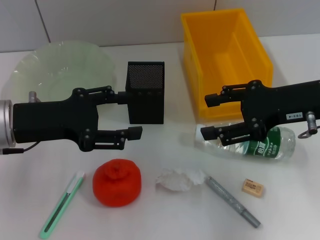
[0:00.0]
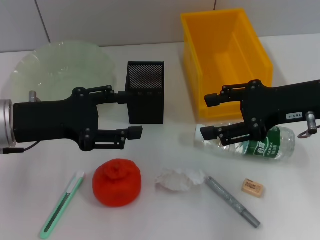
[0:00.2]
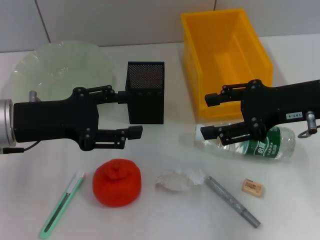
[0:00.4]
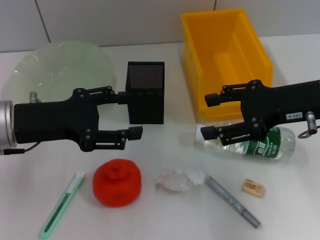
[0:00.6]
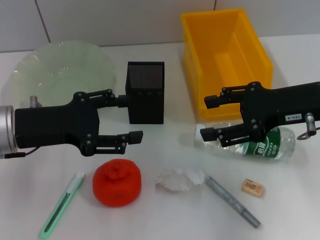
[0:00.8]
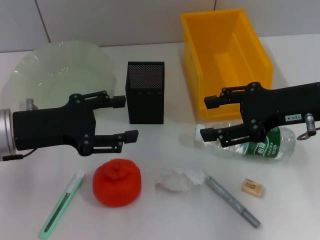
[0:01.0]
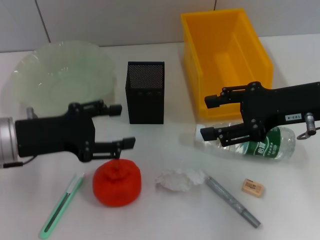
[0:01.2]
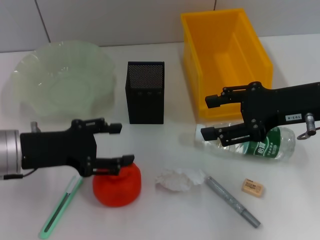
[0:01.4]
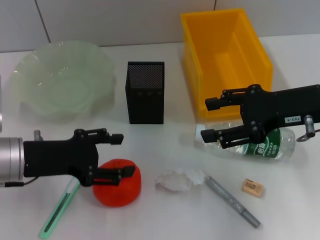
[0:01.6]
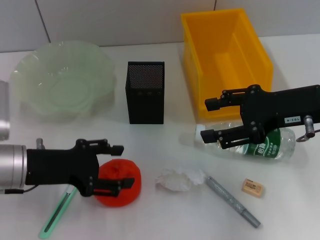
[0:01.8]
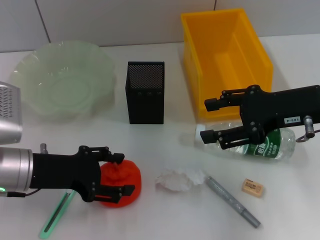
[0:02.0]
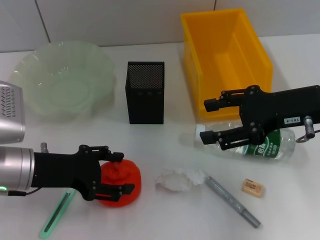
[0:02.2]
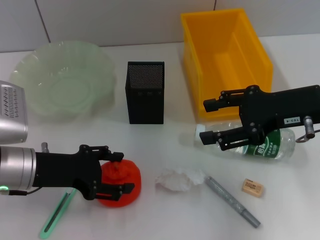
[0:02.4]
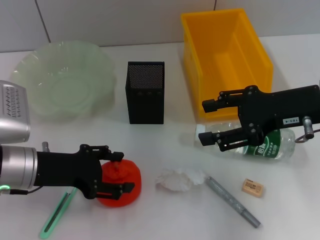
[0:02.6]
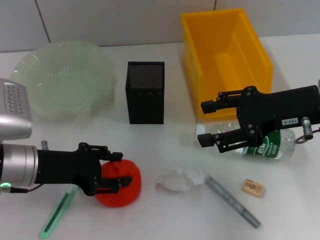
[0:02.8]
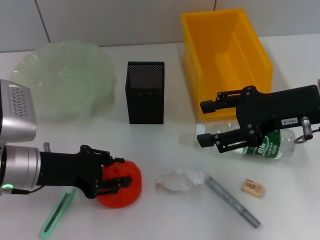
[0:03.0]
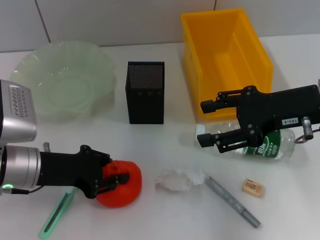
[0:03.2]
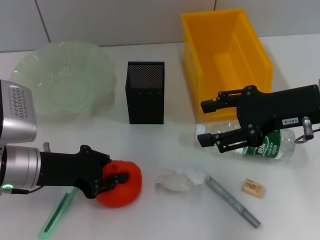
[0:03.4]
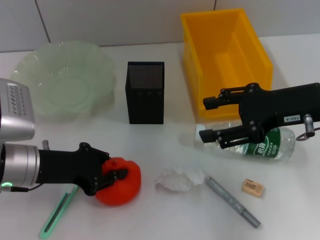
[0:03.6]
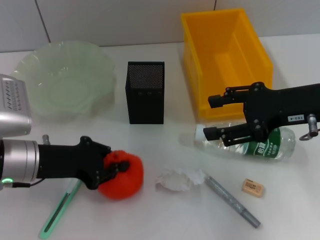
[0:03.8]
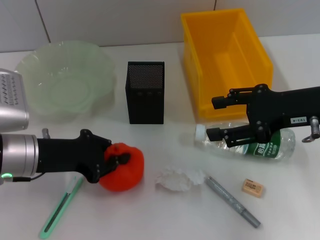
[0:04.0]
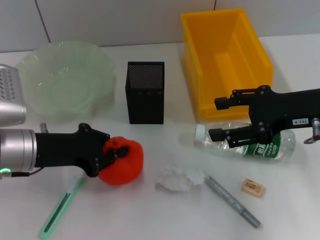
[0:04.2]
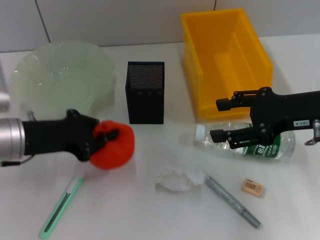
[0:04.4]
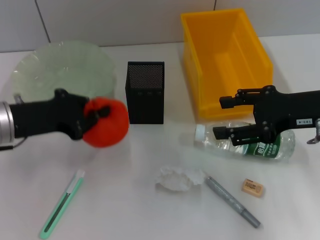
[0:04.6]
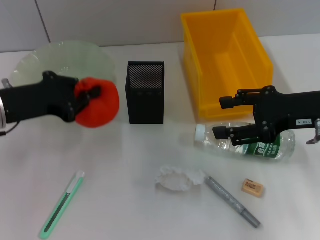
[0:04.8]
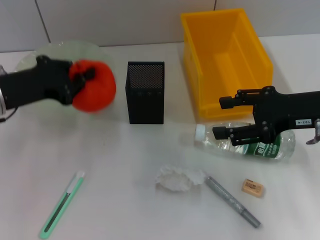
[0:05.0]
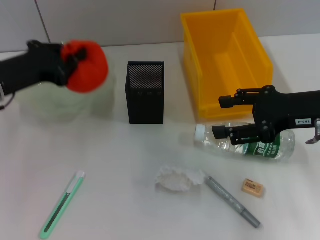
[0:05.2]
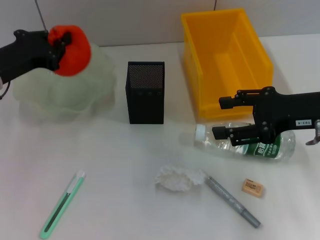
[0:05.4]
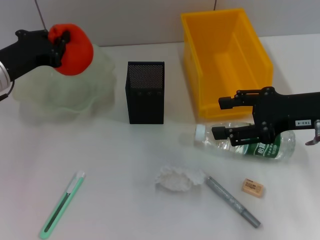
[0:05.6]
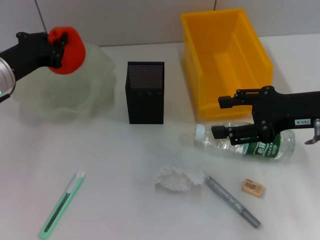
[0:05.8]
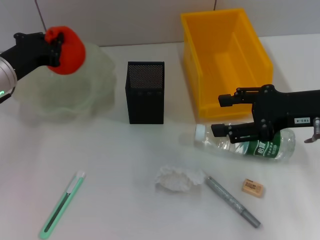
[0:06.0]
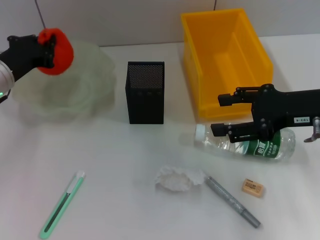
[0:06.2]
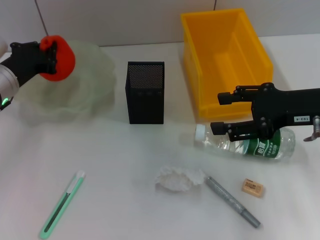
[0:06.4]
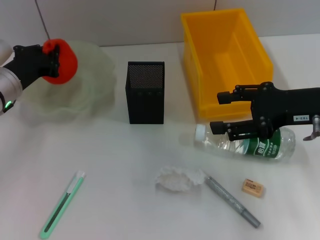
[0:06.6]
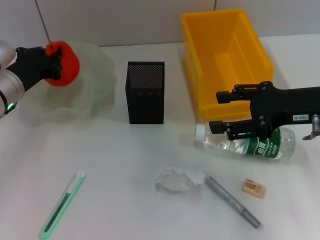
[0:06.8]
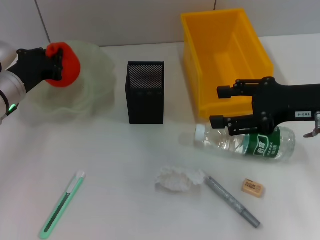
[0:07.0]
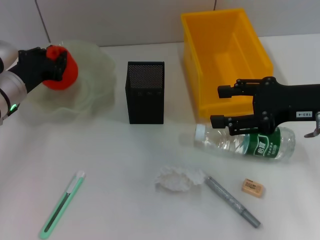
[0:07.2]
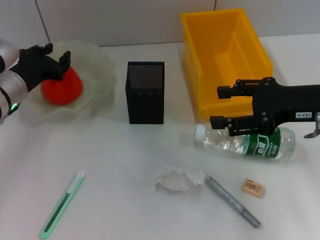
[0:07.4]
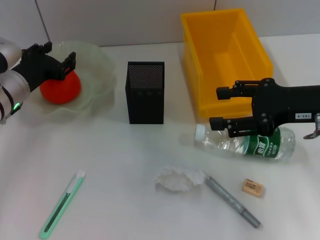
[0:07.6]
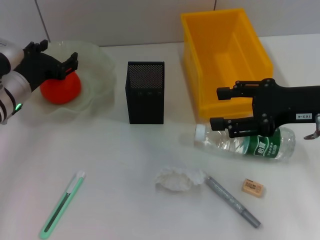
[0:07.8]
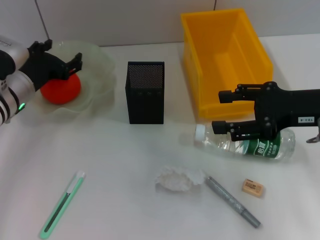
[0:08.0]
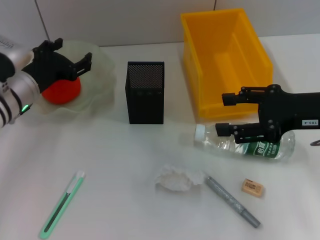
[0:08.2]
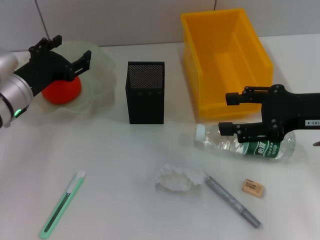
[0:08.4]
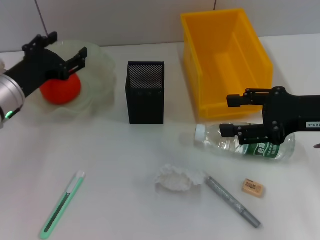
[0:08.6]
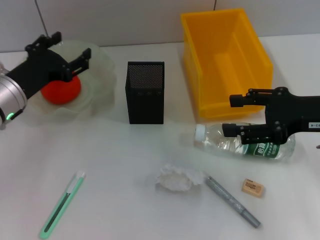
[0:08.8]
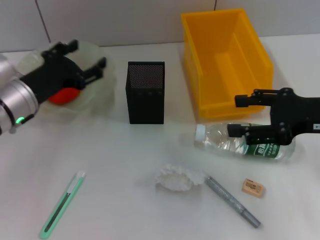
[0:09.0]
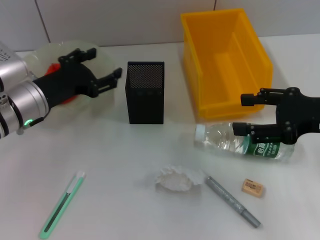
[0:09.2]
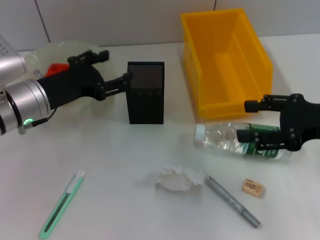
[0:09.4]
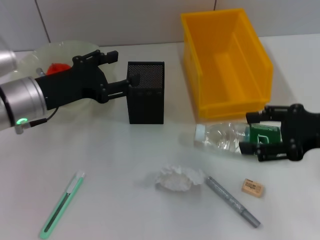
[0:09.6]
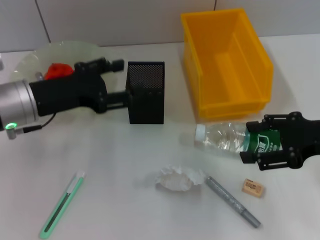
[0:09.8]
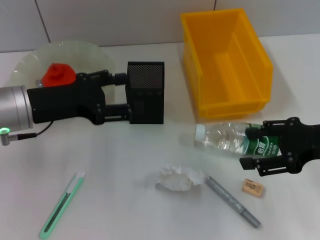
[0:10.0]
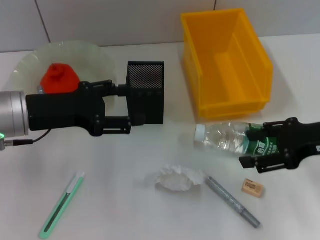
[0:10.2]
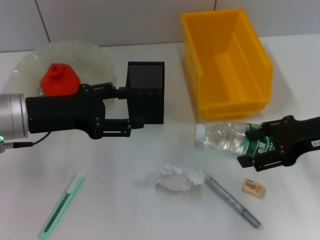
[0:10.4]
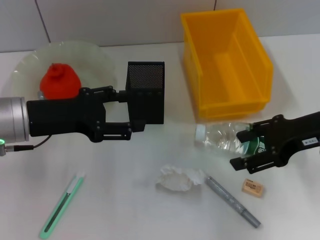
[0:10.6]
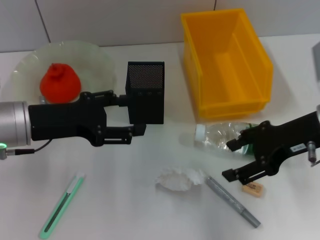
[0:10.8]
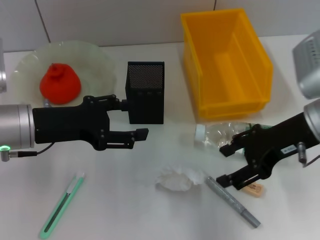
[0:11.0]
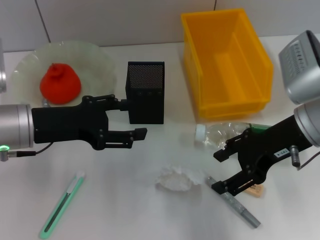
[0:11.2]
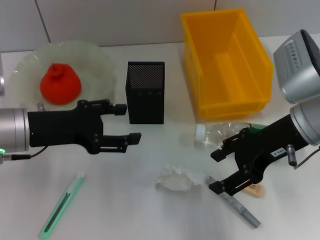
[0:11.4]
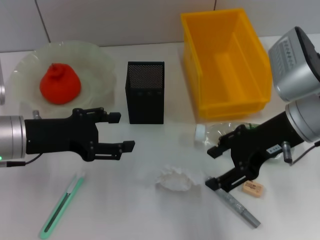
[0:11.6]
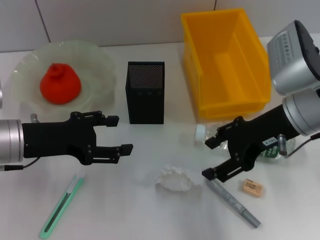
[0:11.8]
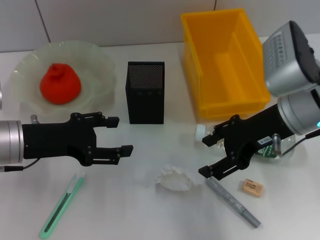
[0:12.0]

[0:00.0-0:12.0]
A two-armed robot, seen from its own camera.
Step, 0:00.0 to 0:03.8: Grab the orange with the left hand.
Step, 0:04.0 to 0:07.6: Place the orange into the fruit bowl with the left hand.
0:00.0 to 0:01.6: The grippers make only small movements.
0:01.6 to 0:03.0: The grippers make only small movements.
0:03.0 to 0:04.4: The left gripper closes its fingers.
0:04.4 to 0:06.0: The left gripper heads forward, covering approximately 10 cm.
0:06.0 to 0:07.6: The left gripper opens up.
0:07.6 to 0:09.0: The left gripper opens up.
0:09.0 to 0:10.4: The left gripper goes about 5 cm upward.
0:10.4 to 0:12.0: The right gripper goes roughly 10 cm to the left.

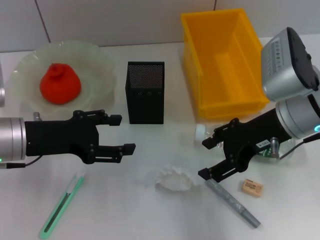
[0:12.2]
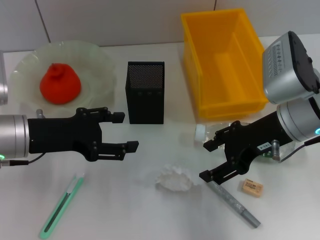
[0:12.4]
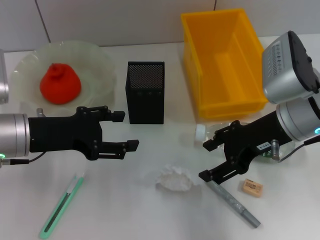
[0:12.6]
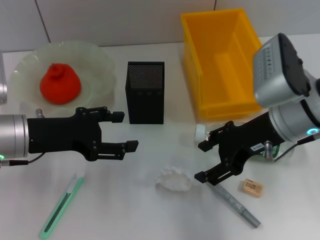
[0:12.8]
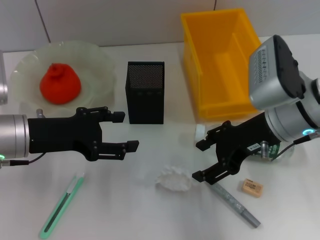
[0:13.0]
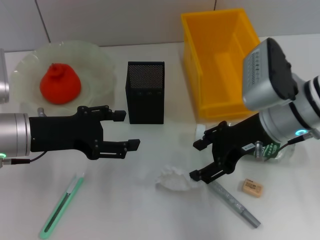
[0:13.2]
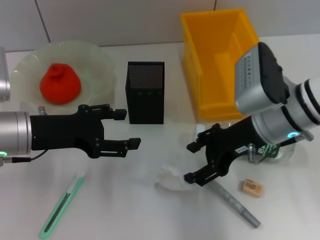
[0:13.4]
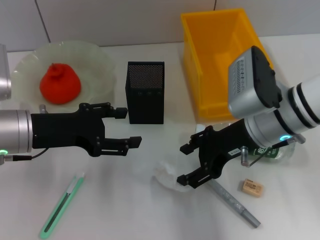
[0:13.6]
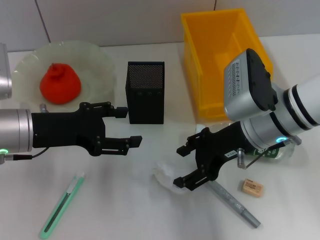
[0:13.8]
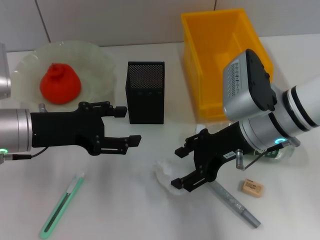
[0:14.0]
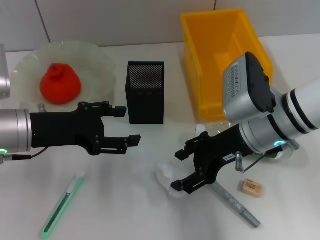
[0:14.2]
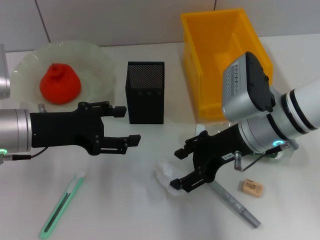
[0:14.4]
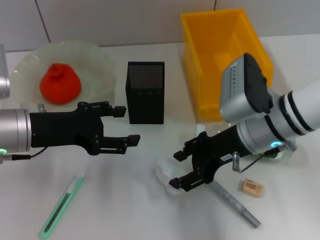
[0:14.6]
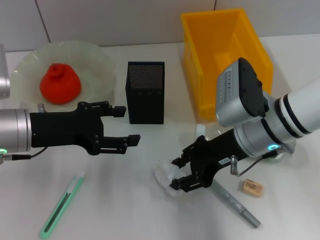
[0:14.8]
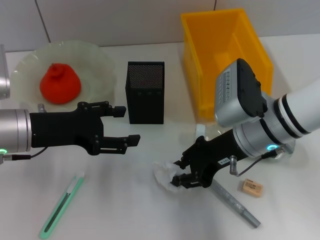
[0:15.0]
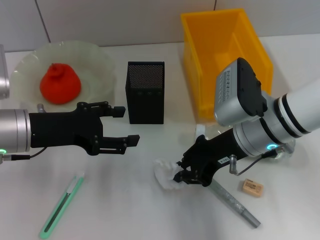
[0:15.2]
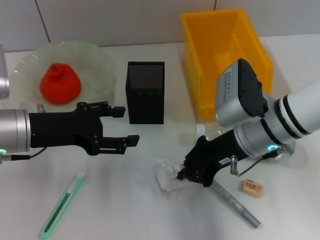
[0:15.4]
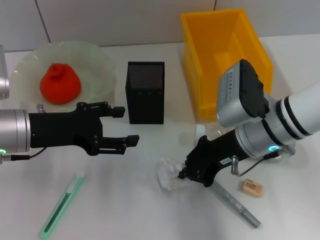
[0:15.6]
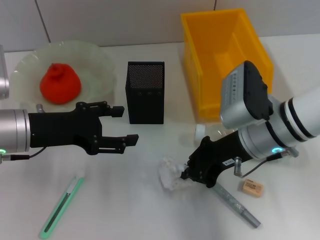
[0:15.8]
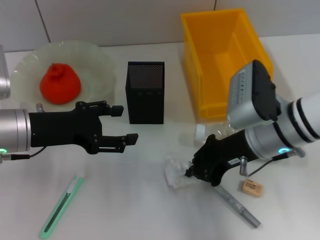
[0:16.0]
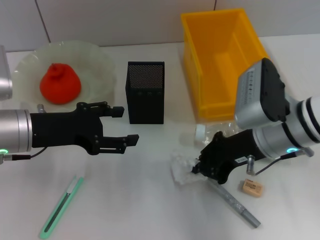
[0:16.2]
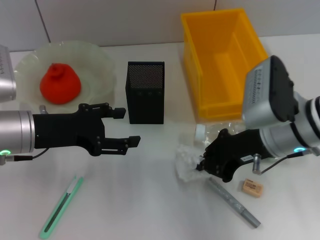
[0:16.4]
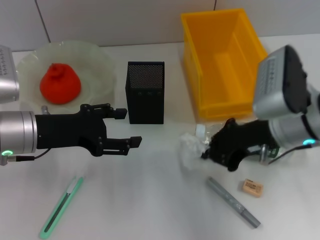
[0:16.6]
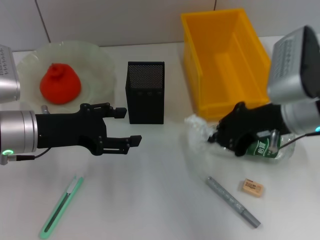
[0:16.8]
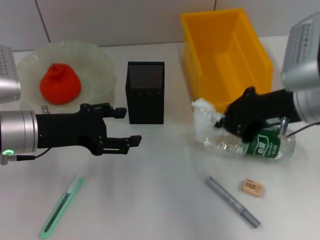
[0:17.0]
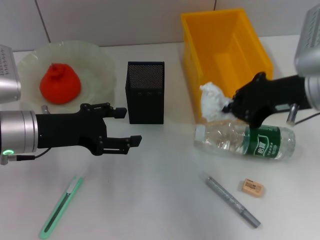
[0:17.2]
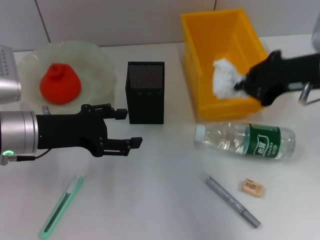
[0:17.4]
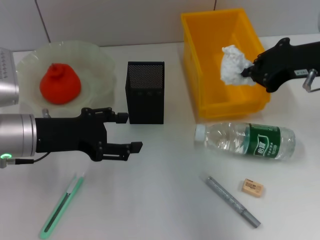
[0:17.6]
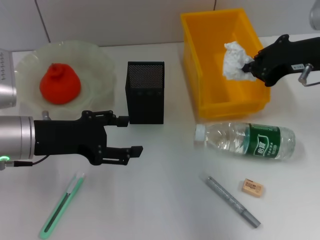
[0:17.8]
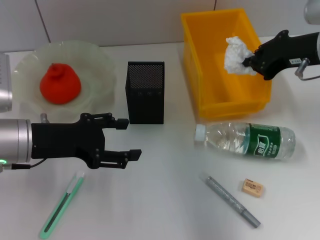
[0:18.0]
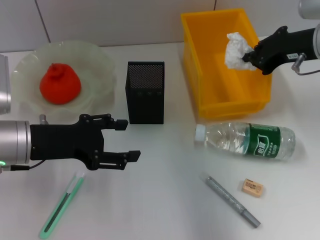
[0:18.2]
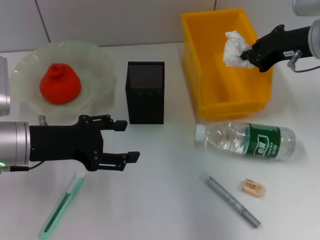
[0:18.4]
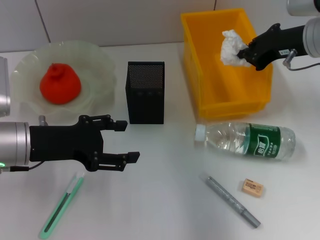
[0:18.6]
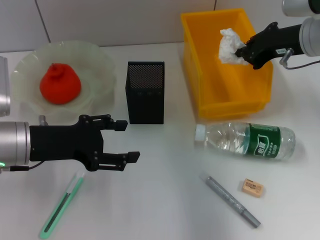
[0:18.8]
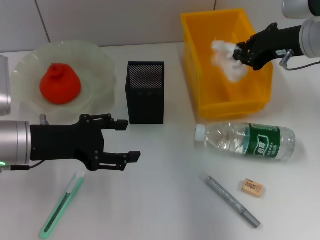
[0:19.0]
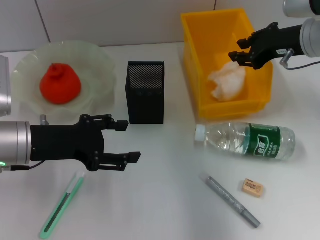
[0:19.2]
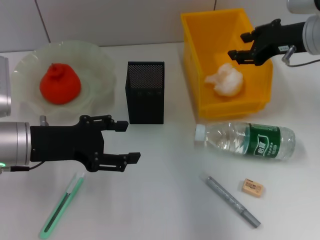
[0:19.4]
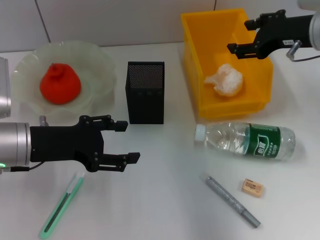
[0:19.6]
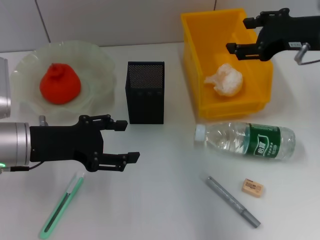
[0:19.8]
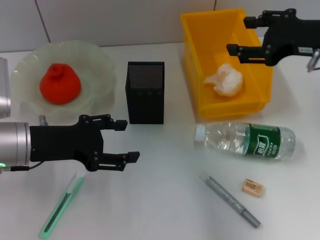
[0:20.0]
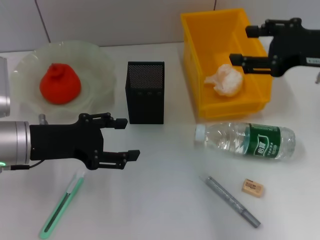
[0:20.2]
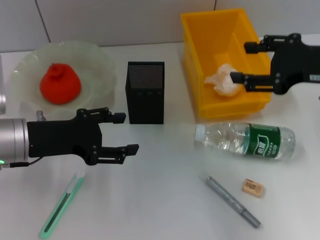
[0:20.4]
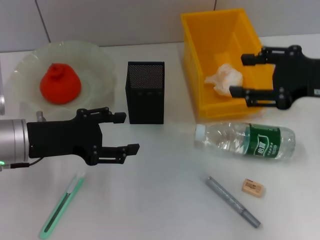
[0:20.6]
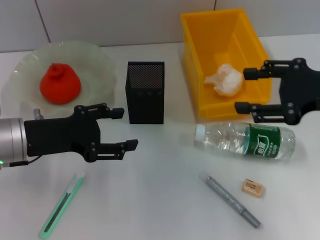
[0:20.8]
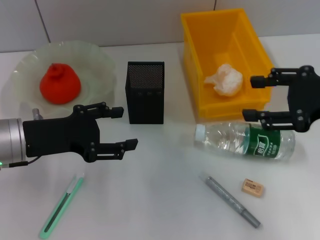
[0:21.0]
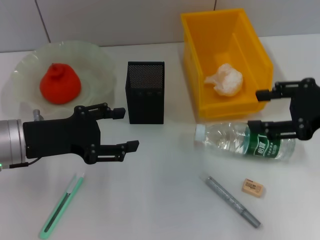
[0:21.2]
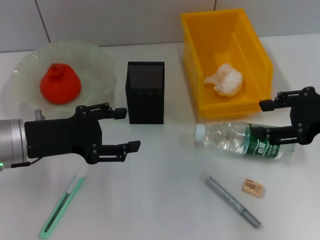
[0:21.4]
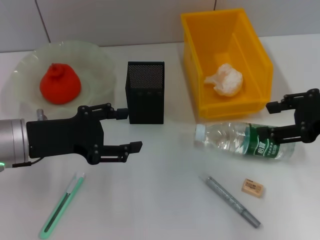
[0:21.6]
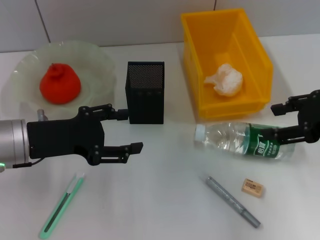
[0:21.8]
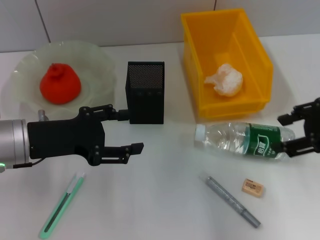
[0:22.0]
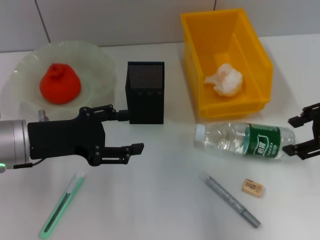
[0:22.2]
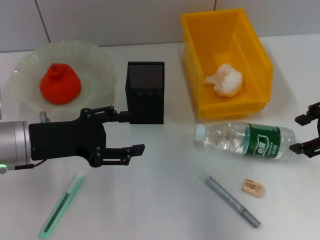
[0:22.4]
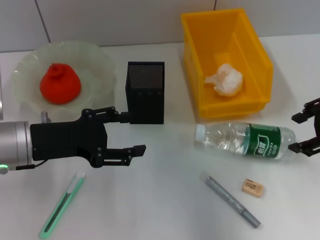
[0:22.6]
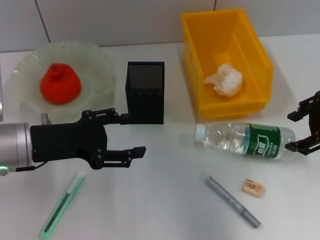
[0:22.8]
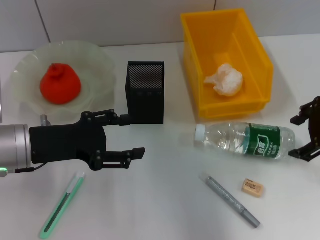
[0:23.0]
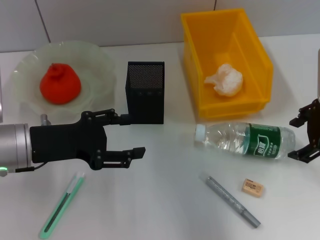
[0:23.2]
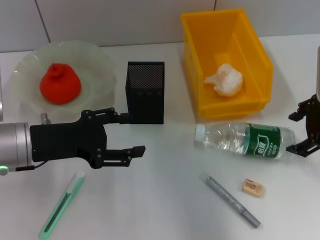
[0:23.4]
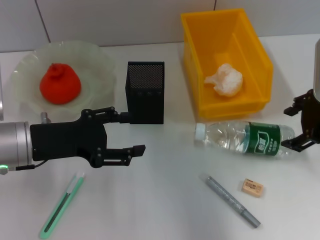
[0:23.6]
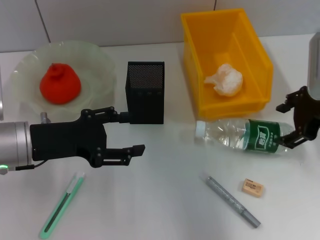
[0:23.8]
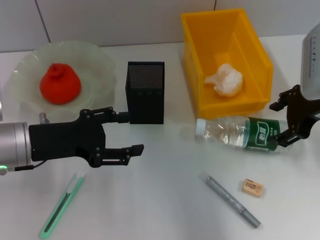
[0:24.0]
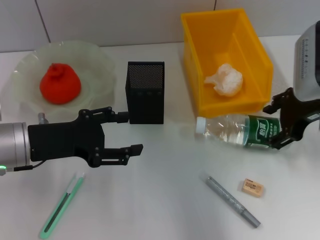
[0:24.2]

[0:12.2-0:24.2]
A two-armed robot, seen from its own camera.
Step, 0:12.2 to 0:15.6: Grab the paper ball with the right hand.
Step, 0:16.0 to 0:19.2: Place the paper ball into the trash can with the right hand.
0:12.2 to 0:13.8: The grippers make only small movements.
0:13.8 to 0:15.2: The right gripper closes.
0:15.2 to 0:16.6: The right gripper moves roughly 5 cm.
0:16.6 to 0:18.2: The right gripper goes some 10 cm forward, to the right and upward.
0:18.2 to 0:19.8: The right gripper opens up.
0:19.8 to 0:21.2: The right gripper is displaced backward by roughly 10 cm.
0:22.6 to 0:24.2: The right gripper changes place by some 5 cm.
